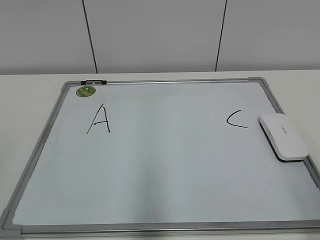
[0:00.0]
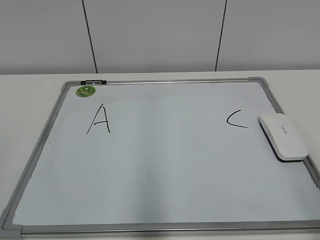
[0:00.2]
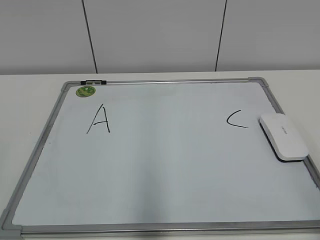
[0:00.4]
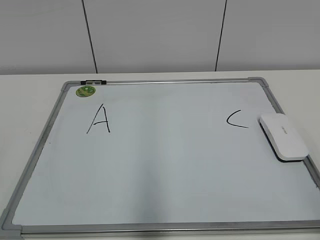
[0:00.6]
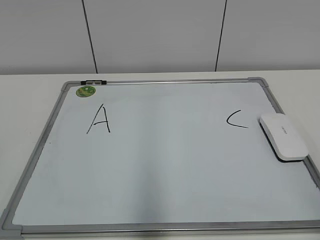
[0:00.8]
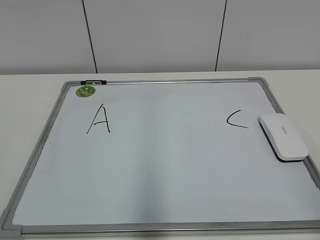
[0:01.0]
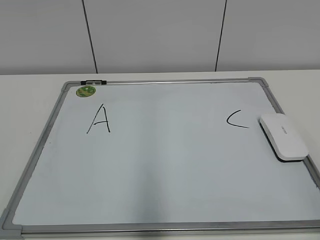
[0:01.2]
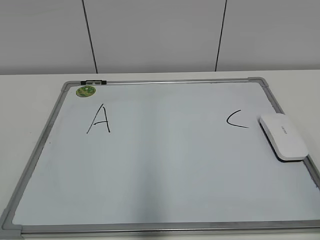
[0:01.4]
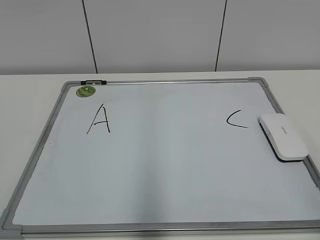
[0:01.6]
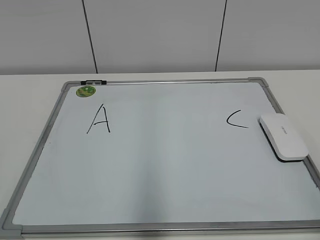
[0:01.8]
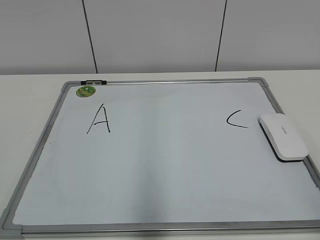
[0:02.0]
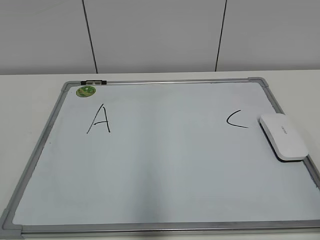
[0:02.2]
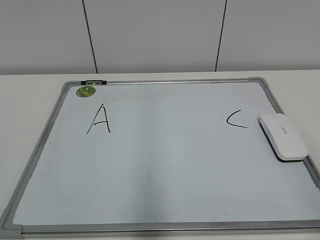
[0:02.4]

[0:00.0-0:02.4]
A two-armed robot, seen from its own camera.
Task of the whole recording: pick up the eraser on the blackboard and erase the letter "B".
0:01.2 to 0:02.4: Both grippers stay put.

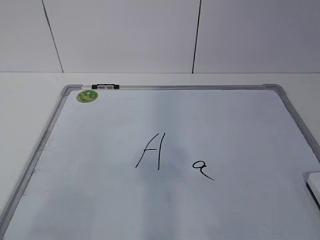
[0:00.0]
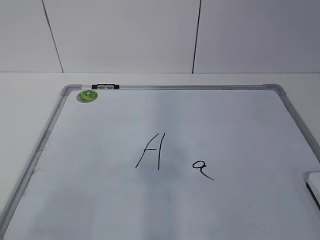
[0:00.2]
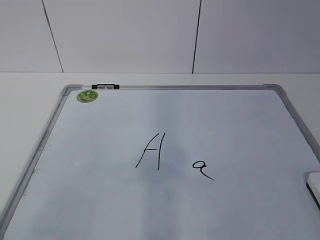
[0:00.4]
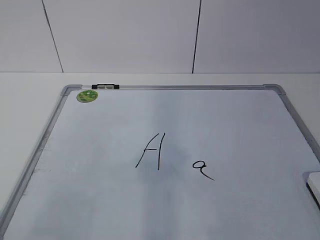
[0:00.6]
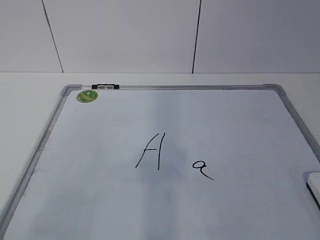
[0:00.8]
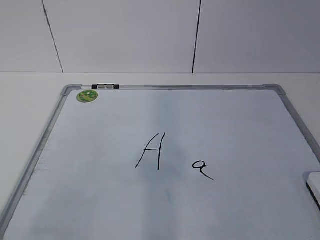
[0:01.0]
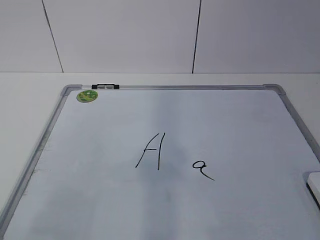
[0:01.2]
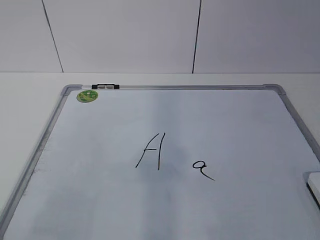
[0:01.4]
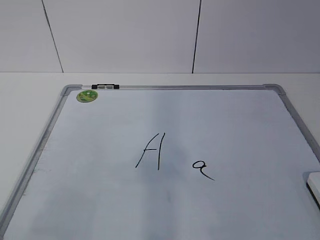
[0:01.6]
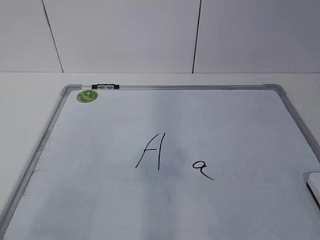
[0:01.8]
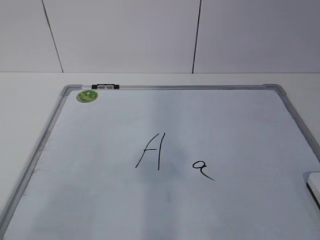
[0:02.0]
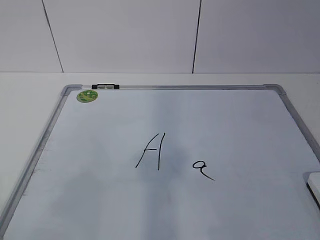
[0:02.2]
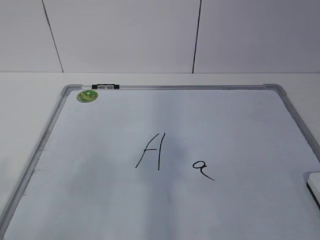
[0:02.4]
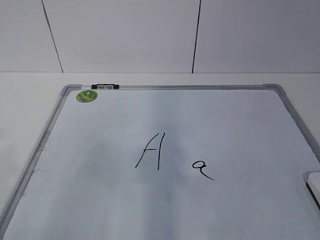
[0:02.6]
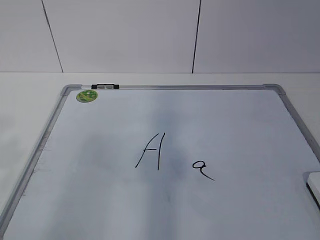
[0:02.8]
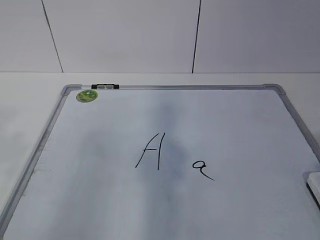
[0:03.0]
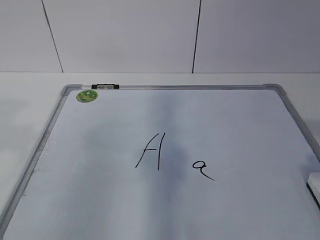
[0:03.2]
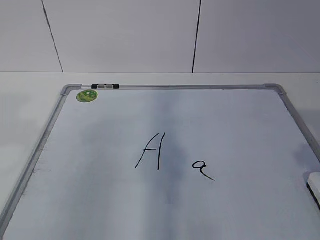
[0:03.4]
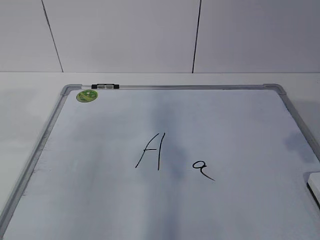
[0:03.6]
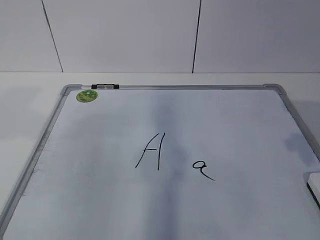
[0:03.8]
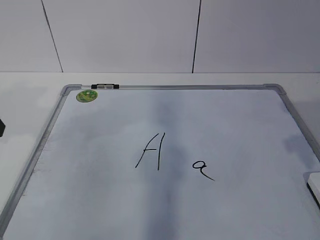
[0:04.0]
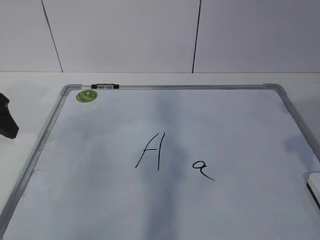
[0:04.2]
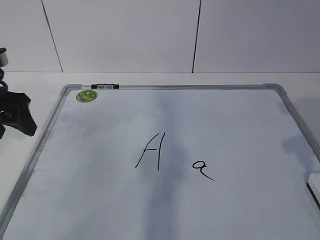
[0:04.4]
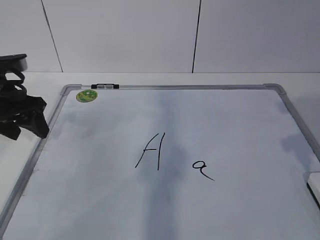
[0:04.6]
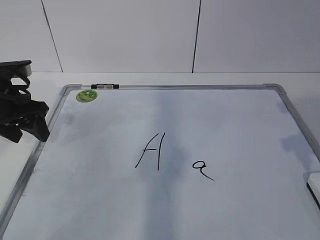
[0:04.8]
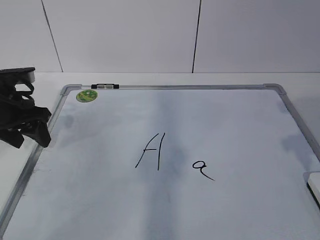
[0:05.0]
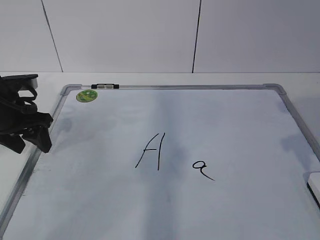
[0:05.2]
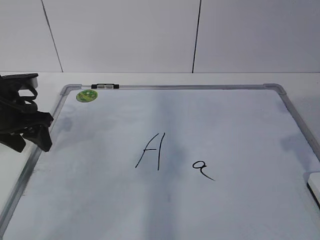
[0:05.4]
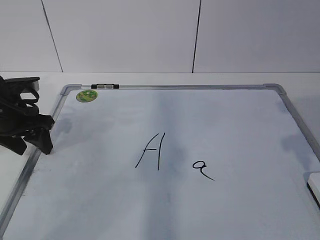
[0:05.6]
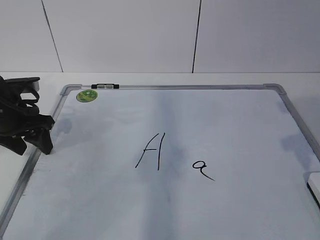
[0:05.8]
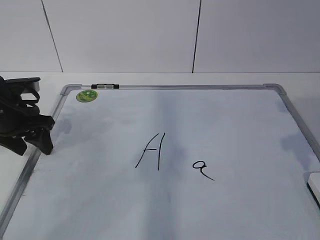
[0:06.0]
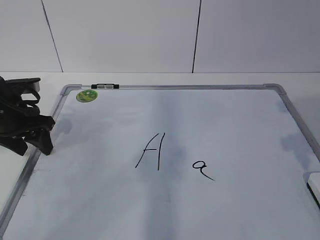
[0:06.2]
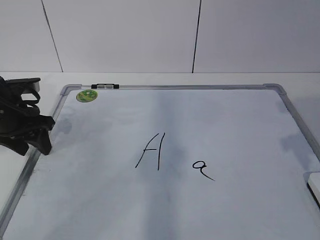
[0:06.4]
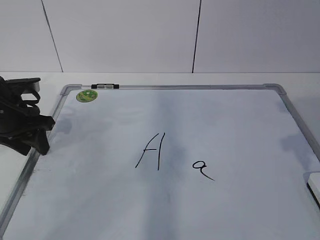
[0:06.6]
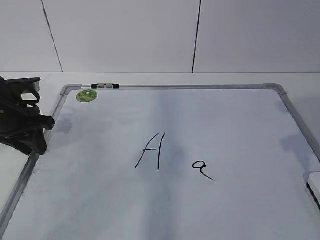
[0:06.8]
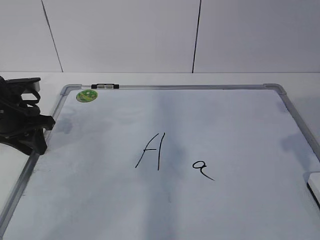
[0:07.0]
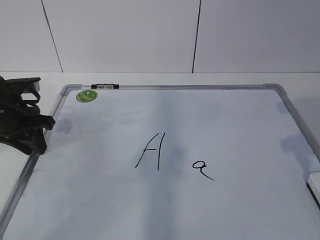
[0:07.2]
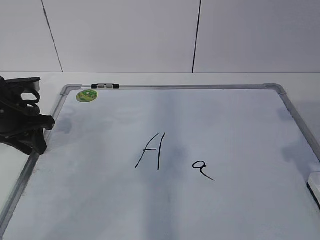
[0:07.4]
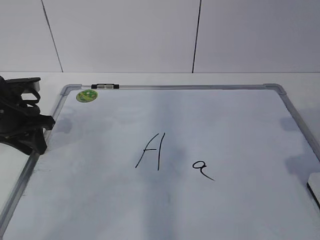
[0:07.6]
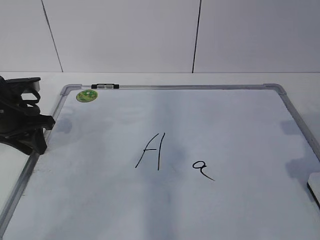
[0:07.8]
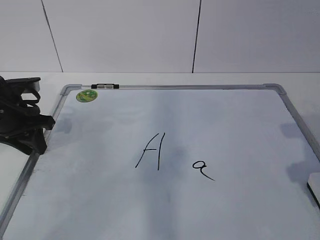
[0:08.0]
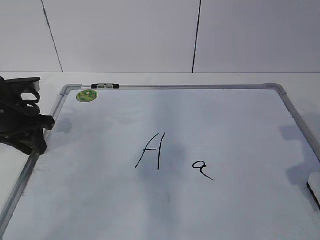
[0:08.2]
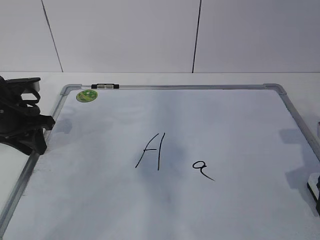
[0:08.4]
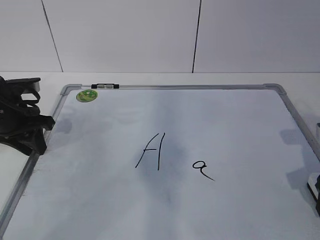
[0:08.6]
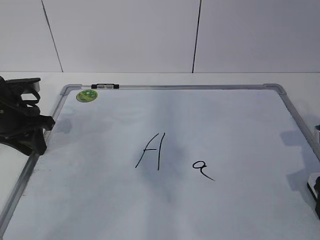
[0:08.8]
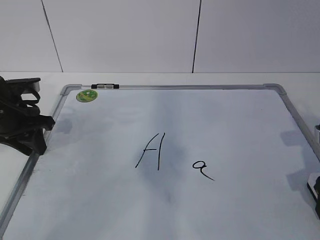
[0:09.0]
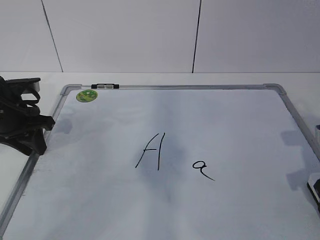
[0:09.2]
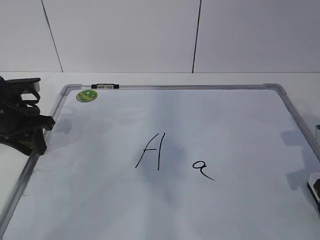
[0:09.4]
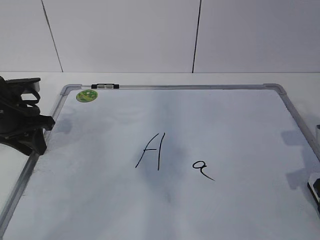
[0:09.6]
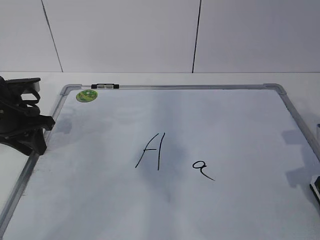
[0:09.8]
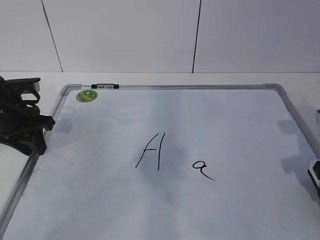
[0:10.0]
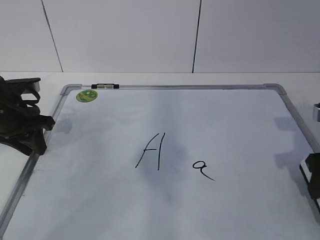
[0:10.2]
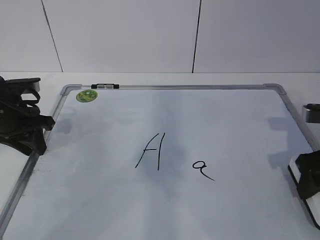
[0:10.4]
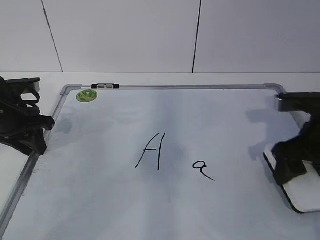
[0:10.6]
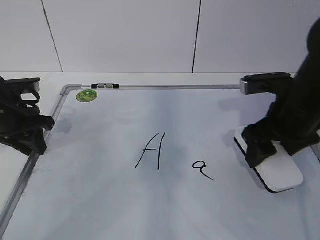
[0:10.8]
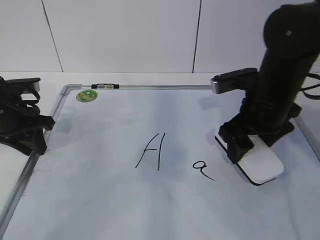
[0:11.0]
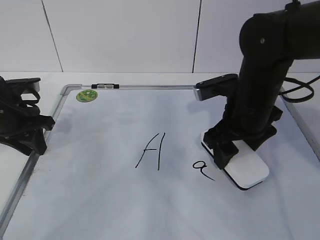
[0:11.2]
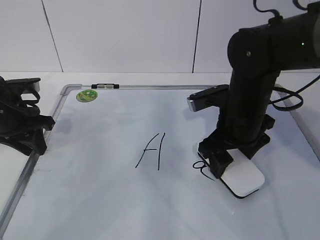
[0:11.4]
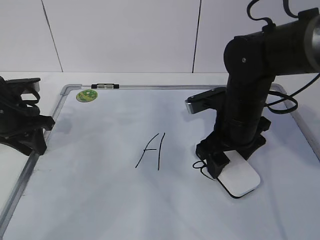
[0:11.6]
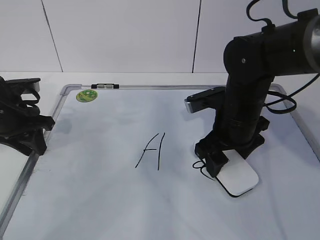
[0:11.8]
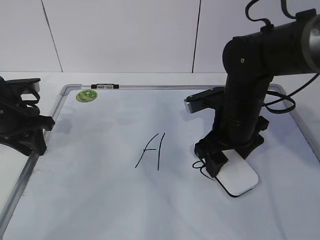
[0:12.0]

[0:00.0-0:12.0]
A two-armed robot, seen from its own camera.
Task of the whole recording: pick up the eraser on the blackboard and erase the letter "a".
Step, 0:00.0 to 0:05.6: Hold the drawing board steady with your left hand.
Step, 0:07.8 to 0:11.0: Erase the letter a with your right hand.
0:03.0 to 0:04.4: The left gripper moves forward and downward, roughly 25 cm.
0:04.4 to 0:06.0: The left gripper travels downward by roughly 5 cm.
0:06.0 to 0:07.6: The left gripper closes.
0:07.6 to 0:09.0: The right gripper shifts approximately 5 cm downward.
0:09.0 to 0:10.4: The right gripper closes its fingers.
0:10.4 to 0:12.0: The right gripper travels to the left and forward by some 15 cm.

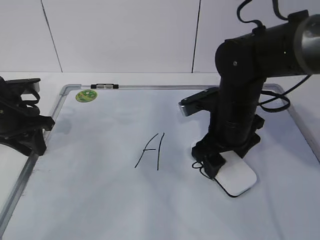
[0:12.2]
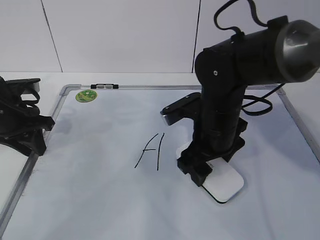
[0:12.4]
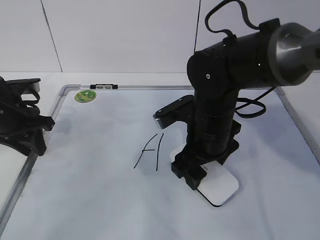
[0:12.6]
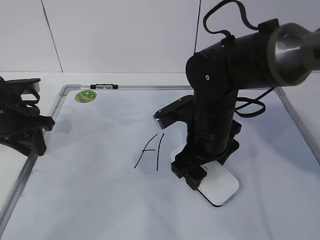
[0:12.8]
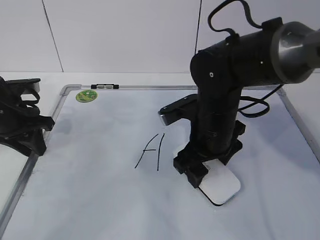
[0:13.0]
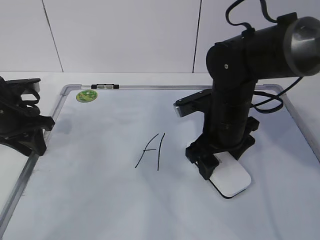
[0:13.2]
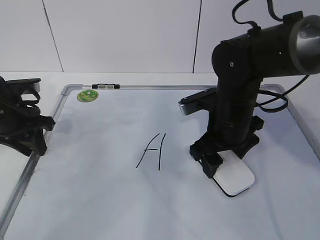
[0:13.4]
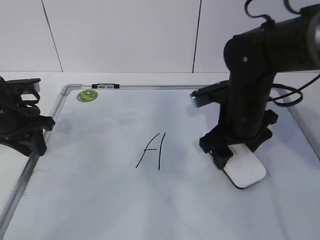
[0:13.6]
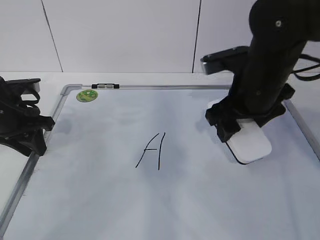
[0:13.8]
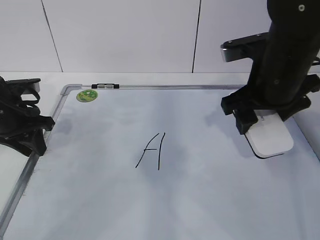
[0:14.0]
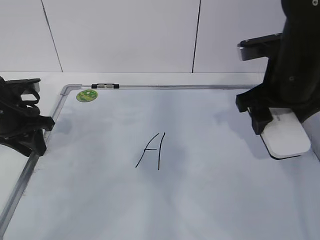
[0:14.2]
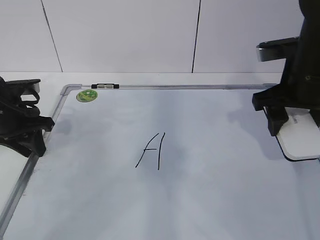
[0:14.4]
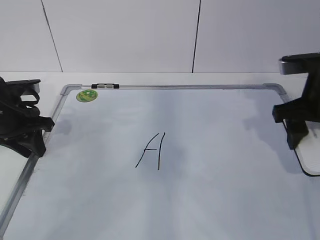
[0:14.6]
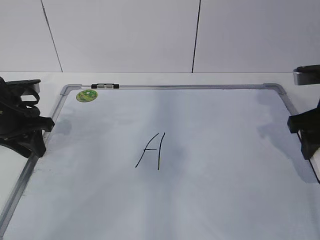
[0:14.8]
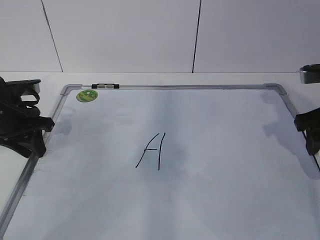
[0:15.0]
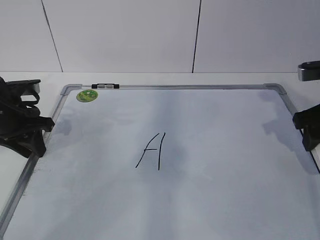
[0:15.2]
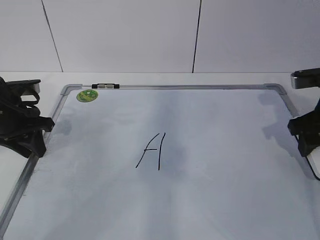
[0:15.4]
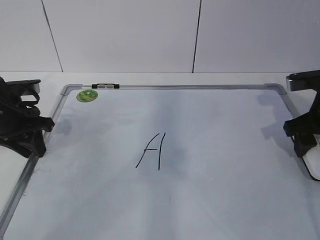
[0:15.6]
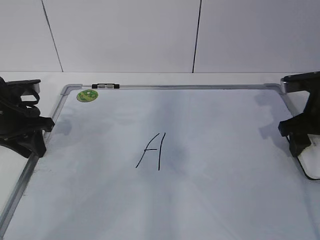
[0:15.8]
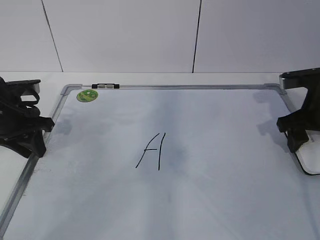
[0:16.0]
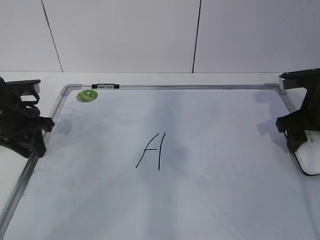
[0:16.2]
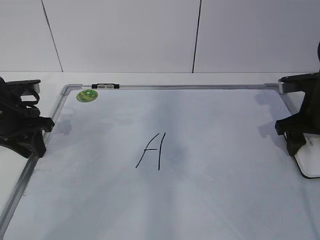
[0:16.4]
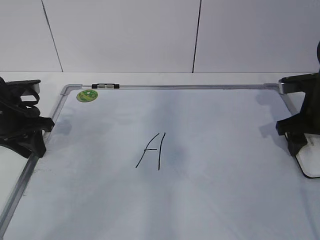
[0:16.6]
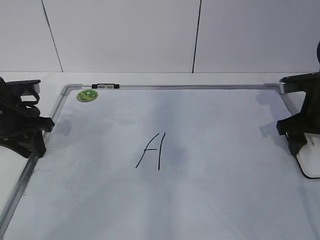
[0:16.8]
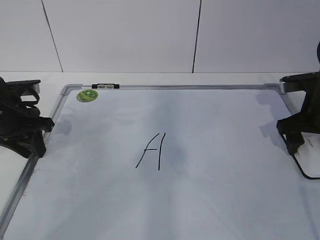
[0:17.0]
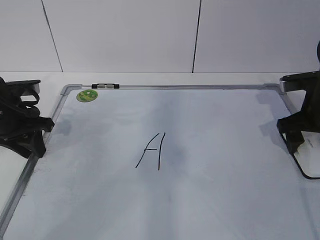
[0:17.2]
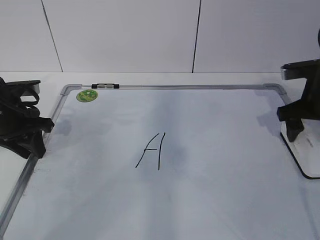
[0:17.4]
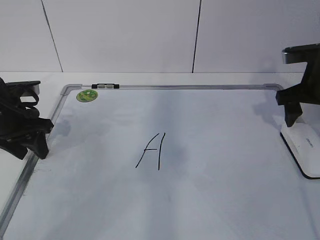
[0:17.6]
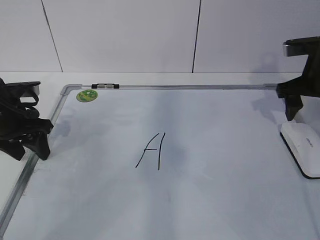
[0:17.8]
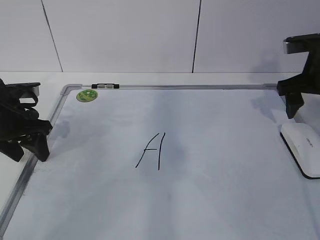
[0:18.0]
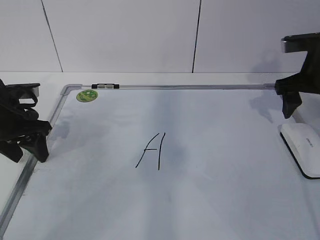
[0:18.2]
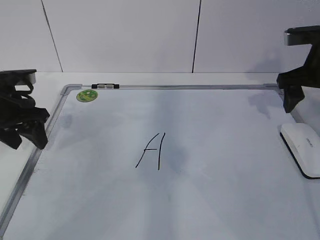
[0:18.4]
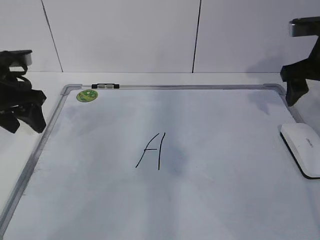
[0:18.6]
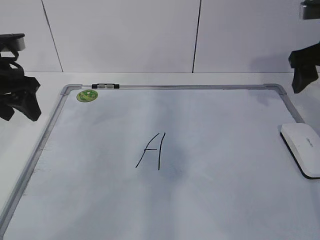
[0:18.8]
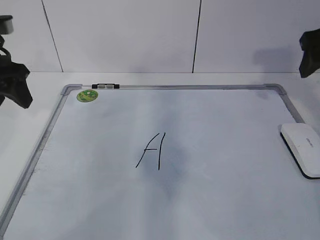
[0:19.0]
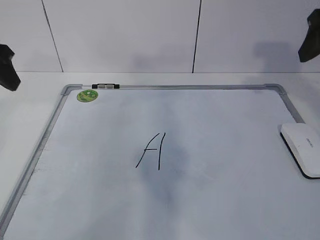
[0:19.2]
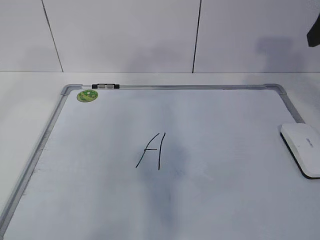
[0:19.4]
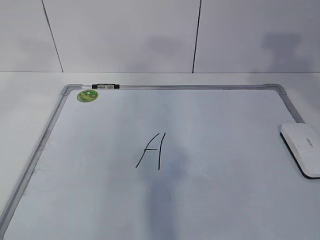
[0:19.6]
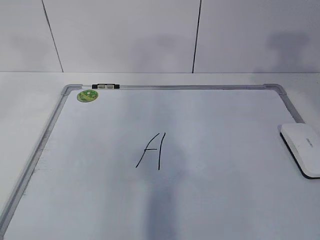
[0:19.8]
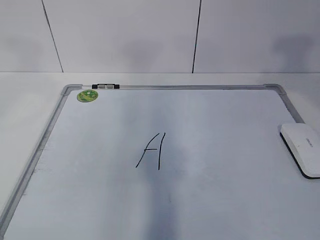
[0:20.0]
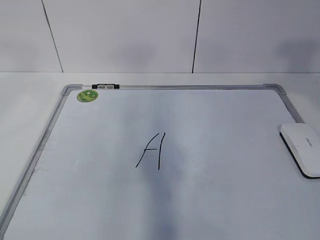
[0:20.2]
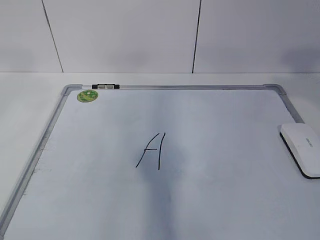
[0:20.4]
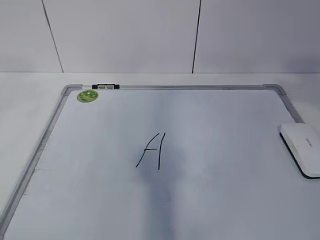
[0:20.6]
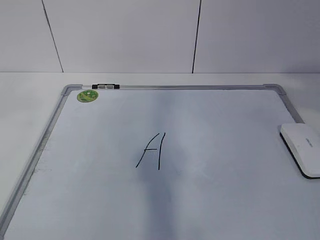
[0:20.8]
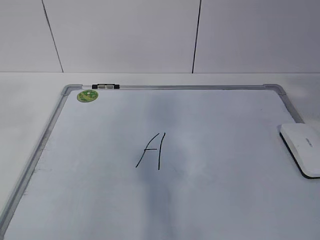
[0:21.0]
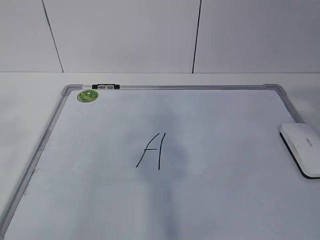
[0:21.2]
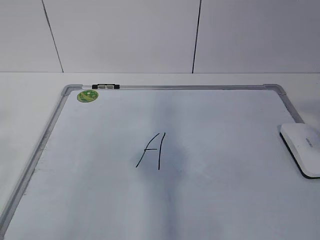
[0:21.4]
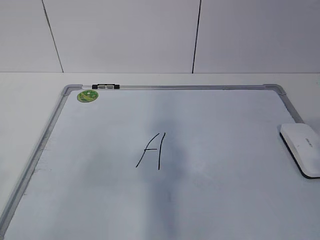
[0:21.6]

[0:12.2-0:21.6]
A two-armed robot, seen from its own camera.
Task of the whole recording: pick up the eraser on the blackboard and erase the letter "a".
Step, 0:12.2 to 0:14.0: Put down the eraser with your right hand.
0:12.2 to 0:13.8: The right gripper goes some 5 cm upward.
0:13.8 to 0:15.4: The right gripper moves to the right, approximately 15 cm.
0:15.4 to 0:17.0: The right gripper opens.
0:17.0 to 0:18.4: The left gripper opens. The right gripper shifts some 5 cm upward.
0:18.4 to 0:20.0: Both grippers move upward and backward, roughly 30 cm. The right gripper closes up.
